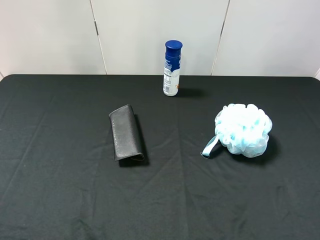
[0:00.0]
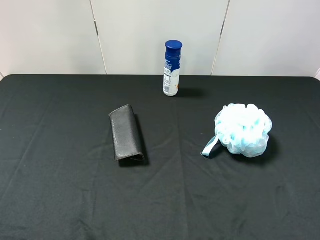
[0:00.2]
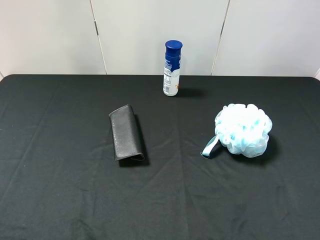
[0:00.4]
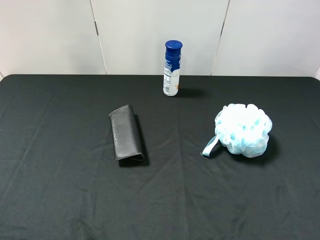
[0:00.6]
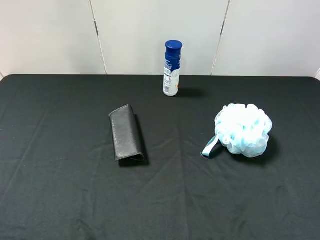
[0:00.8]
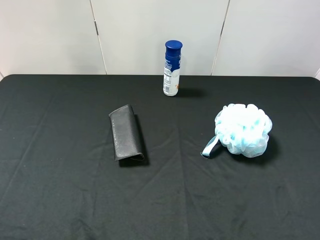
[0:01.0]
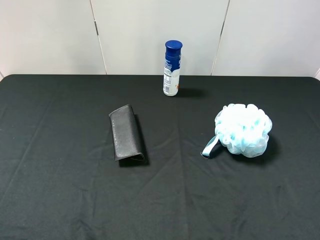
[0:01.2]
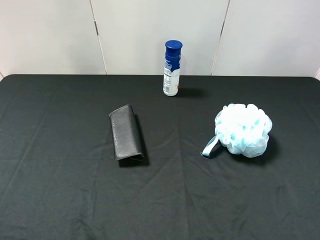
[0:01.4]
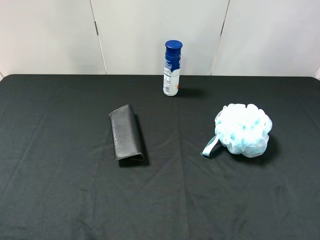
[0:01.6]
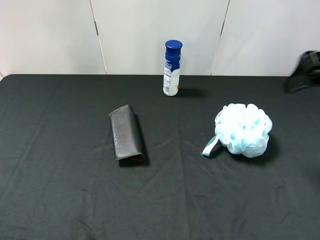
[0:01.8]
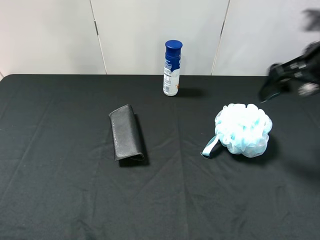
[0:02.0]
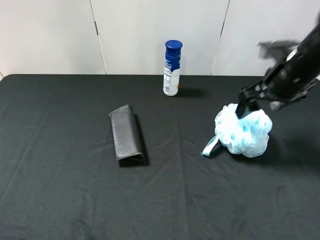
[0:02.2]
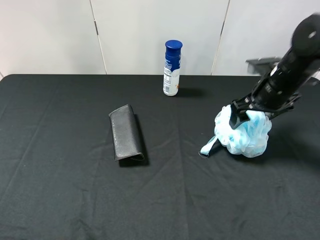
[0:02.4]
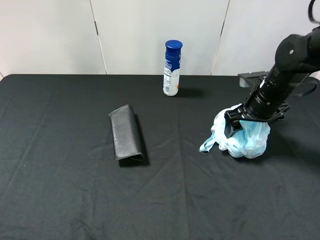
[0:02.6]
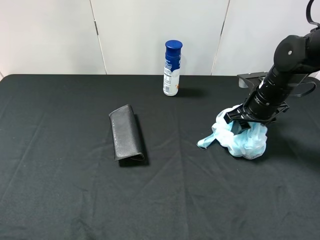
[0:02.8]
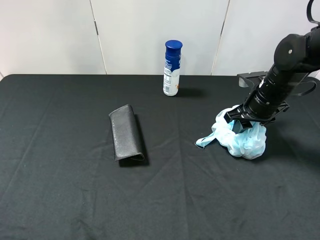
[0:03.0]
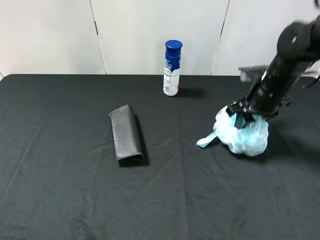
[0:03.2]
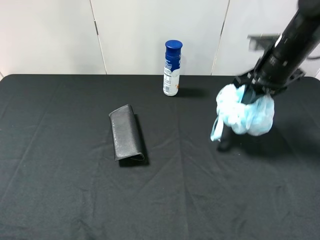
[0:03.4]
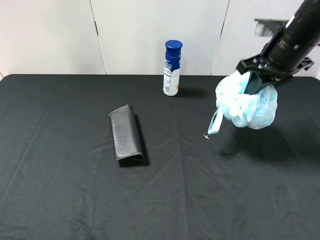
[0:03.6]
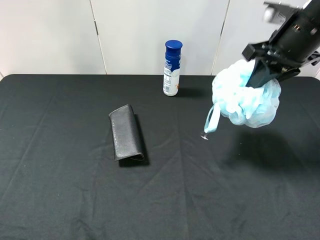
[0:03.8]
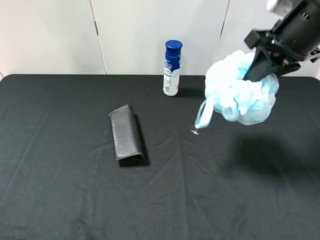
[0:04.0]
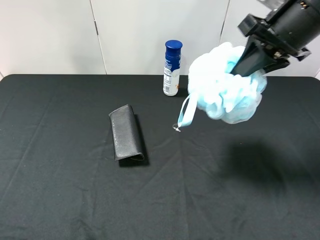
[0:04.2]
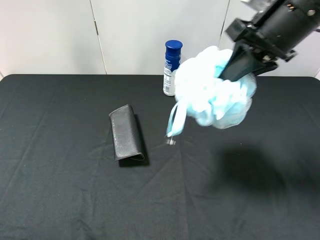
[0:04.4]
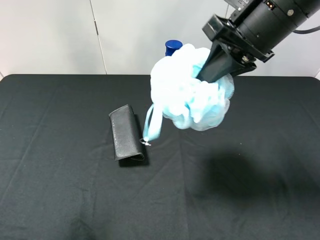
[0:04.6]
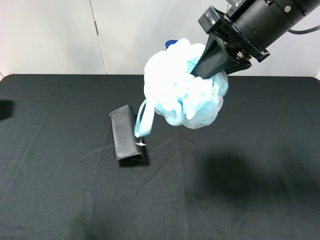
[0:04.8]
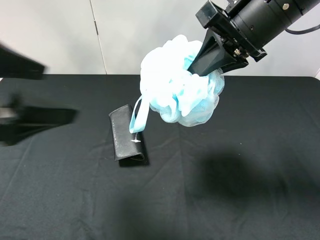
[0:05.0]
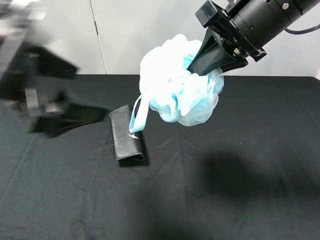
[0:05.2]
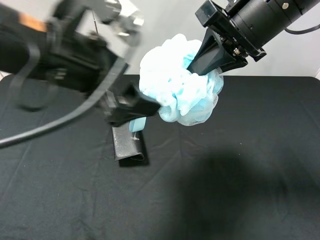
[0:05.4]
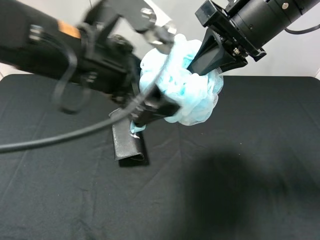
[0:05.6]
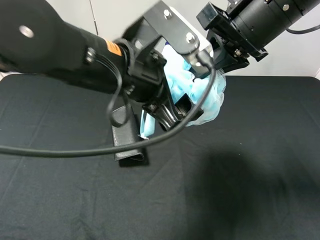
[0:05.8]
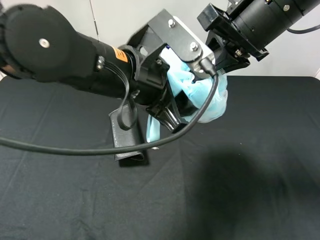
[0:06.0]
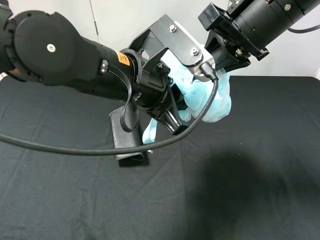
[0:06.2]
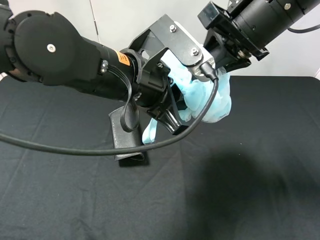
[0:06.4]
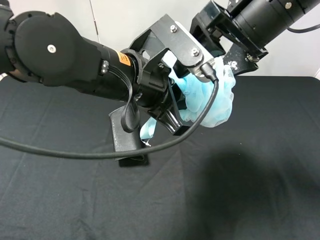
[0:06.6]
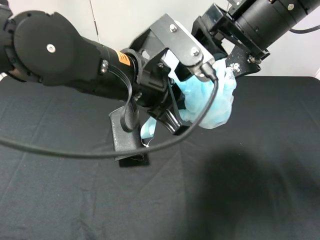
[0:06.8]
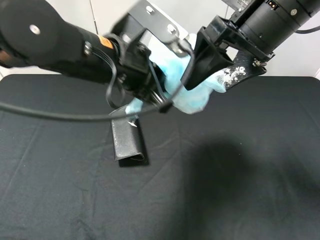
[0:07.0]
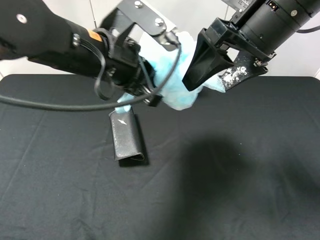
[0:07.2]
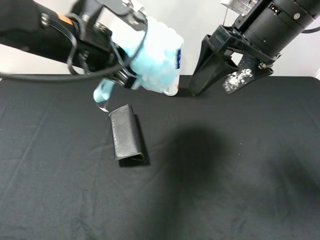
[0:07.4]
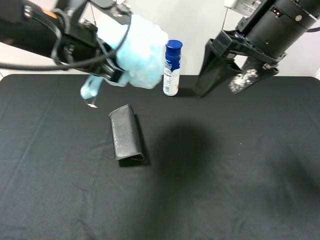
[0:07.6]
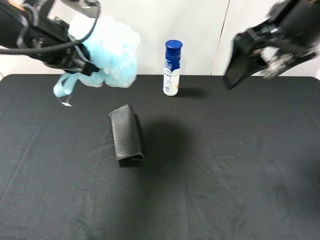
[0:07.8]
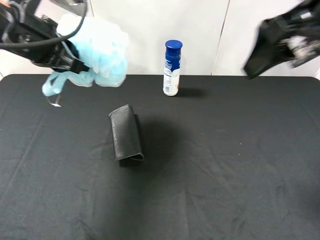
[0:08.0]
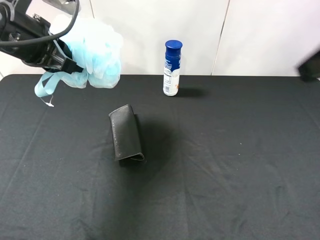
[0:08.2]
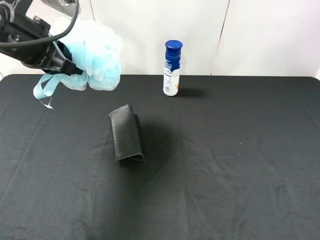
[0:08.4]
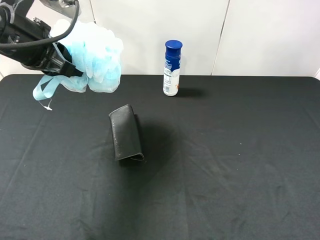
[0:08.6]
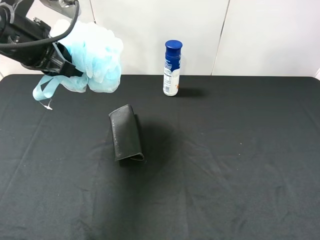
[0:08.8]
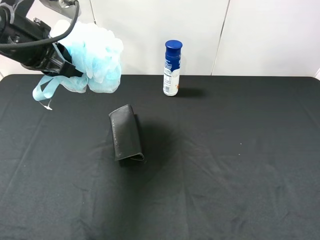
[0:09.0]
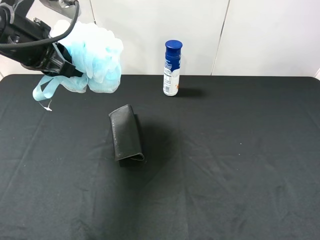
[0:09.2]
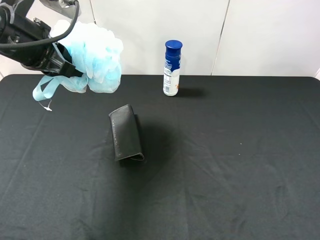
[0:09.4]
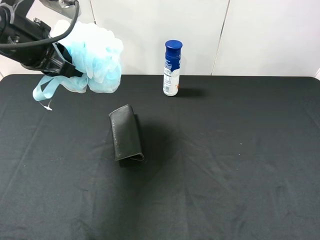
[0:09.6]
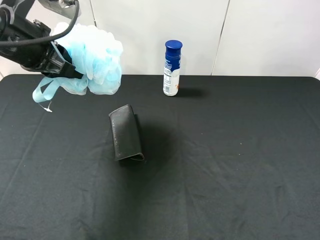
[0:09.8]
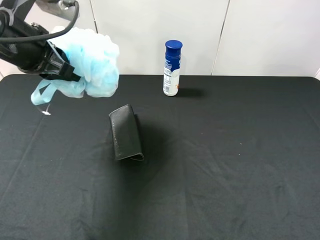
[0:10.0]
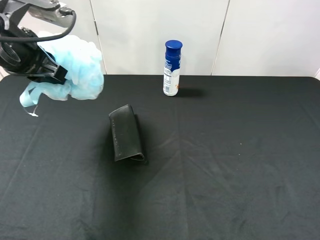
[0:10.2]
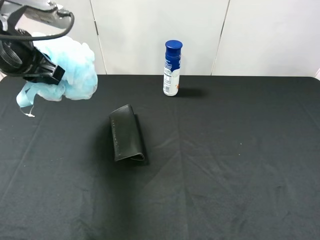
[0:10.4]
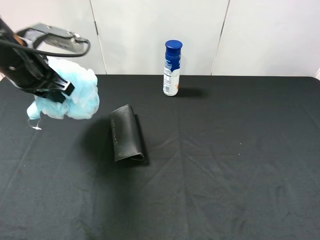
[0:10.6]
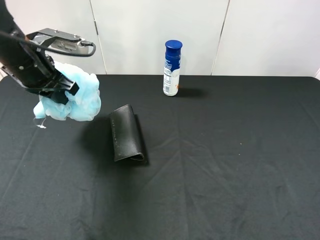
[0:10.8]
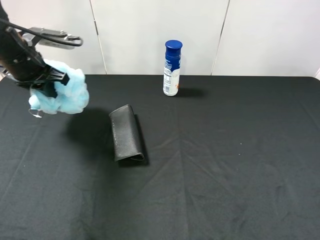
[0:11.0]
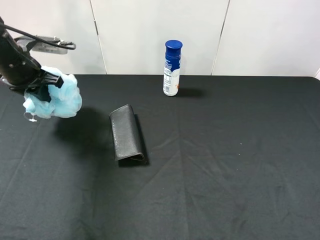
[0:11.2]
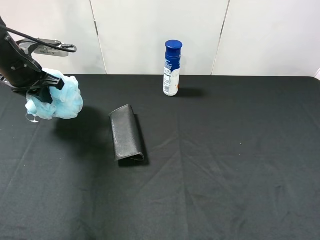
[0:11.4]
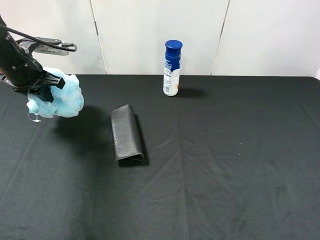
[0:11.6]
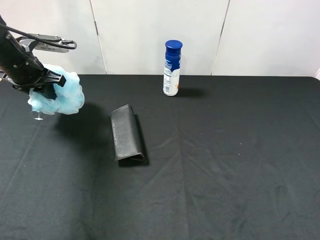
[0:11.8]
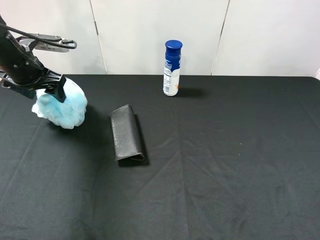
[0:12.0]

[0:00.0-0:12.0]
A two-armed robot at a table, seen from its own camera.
Task of the whole recording: use the right gripper to pick up the item and transfer it from the right gripper to the left gripper.
Step, 0:00.0 to 0:02.6: Use the right gripper to grab the shower sphere on the right side of the table.
Step, 0:02.8 to 0:07.2: Pass the shower sphere to the left gripper.
0:01.6 to 0:03.0: The right gripper is displaced downward and forward by some 25 cm, and closes up.
0:03.0 to 0:04.4: The left gripper shifts by roughly 5 cm; the right gripper goes approximately 20 cm upward and to the left, and closes.
0:04.4 to 0:06.0: The left gripper travels to the right and forward by some 30 cm, and closes its fingers.
0:06.0 to 0:07.6: The right gripper opens. Meanwhile the left gripper moves to the left and forward, some 15 cm.
0:07.6 to 0:09.0: The right gripper is displaced backward and to the right by roughly 30 cm, while the left gripper travels to the left by some 5 cm.
0:10.4 to 0:12.0: The left gripper travels forward, downward and to the left by roughly 10 cm, and opens up.

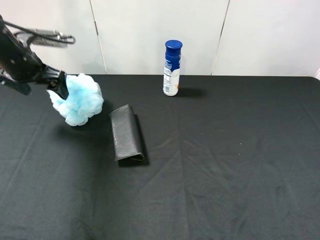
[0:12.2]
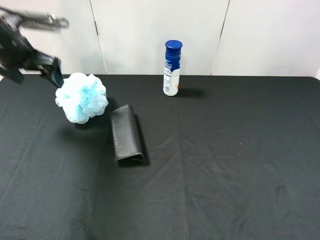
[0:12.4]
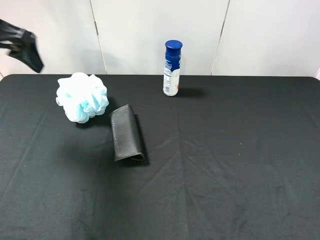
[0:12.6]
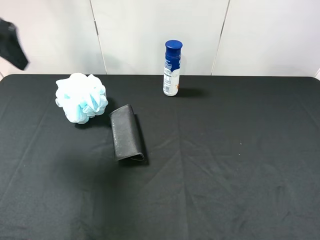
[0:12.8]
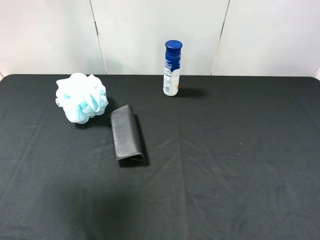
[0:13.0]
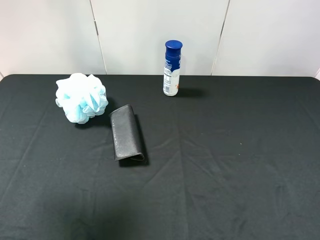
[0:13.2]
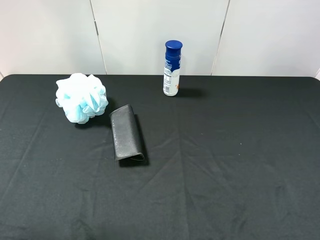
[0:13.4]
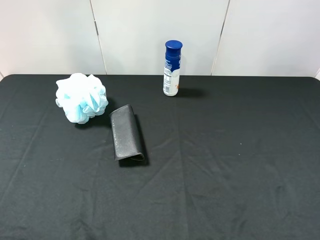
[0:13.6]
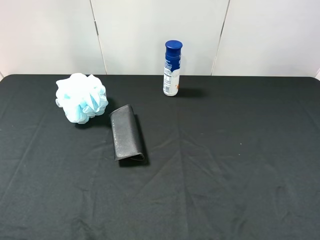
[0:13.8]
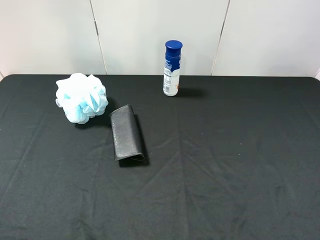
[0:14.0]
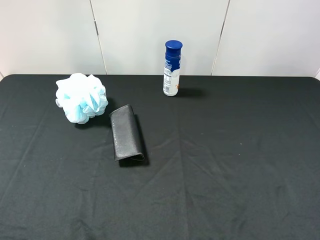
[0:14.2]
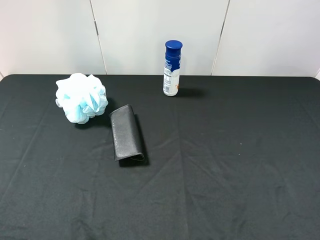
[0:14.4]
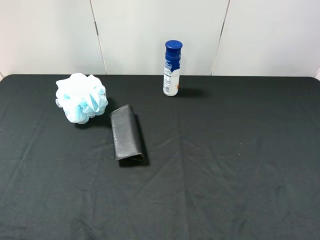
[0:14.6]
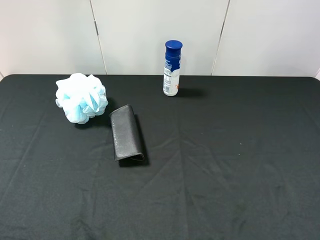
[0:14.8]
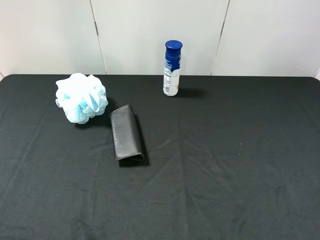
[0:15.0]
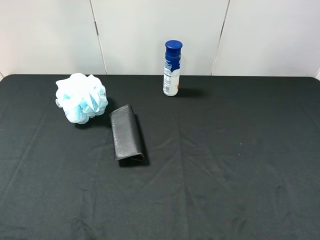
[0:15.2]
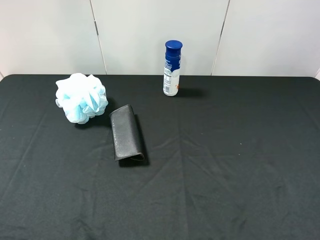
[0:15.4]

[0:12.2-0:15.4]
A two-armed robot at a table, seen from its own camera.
Task of the whole recording: use the right gripper to pick up the item and transfer it from the right gripper to the left gripper.
0:12.2 to 0:13.8: The left gripper moves backward, approximately 35 cm.
